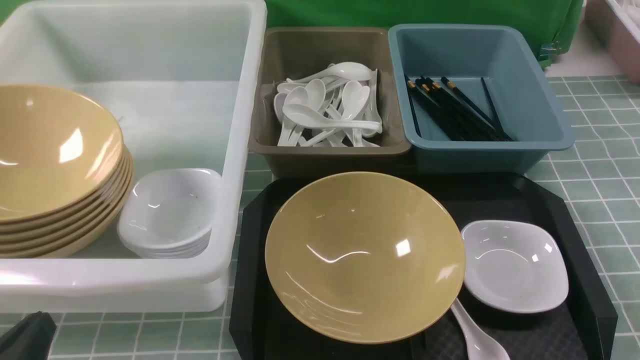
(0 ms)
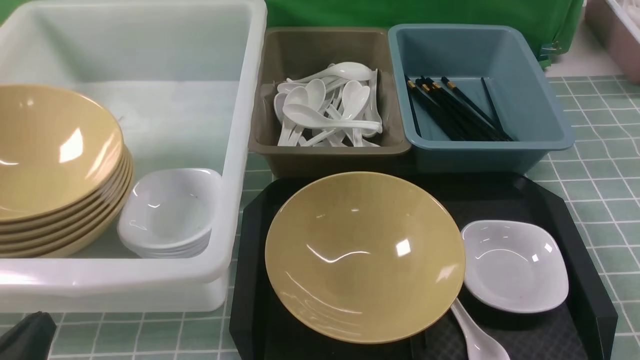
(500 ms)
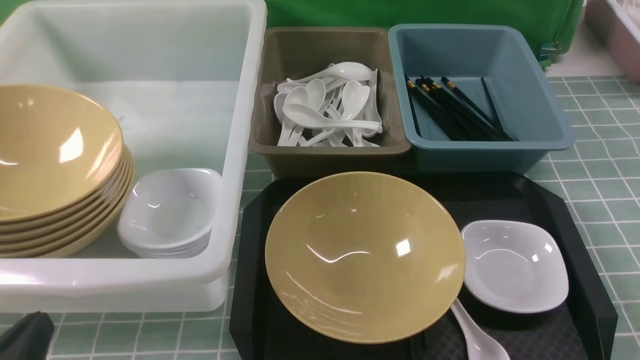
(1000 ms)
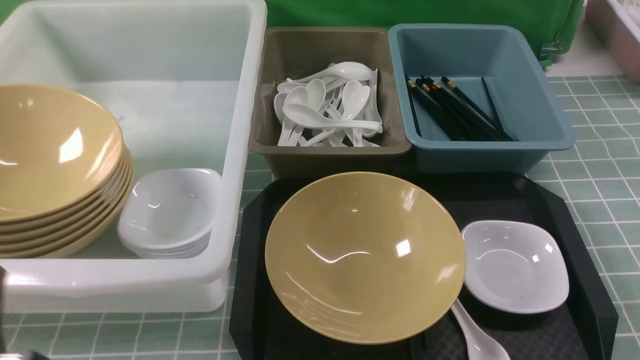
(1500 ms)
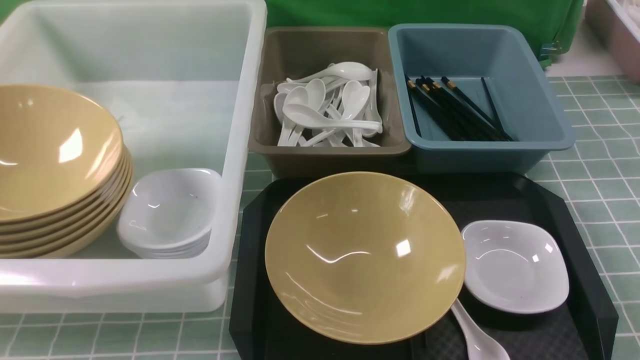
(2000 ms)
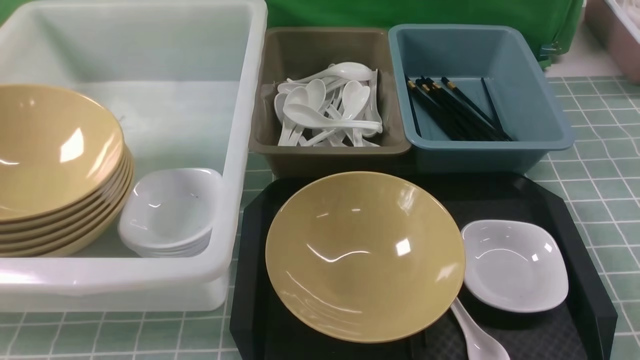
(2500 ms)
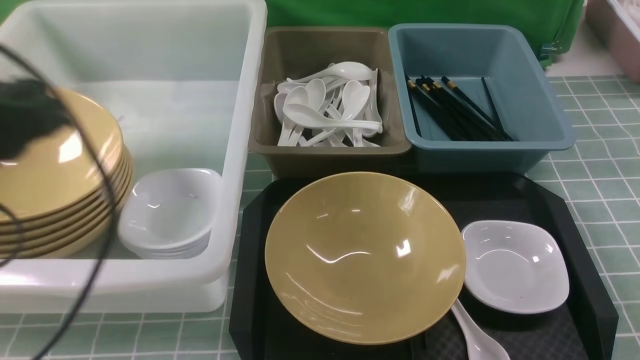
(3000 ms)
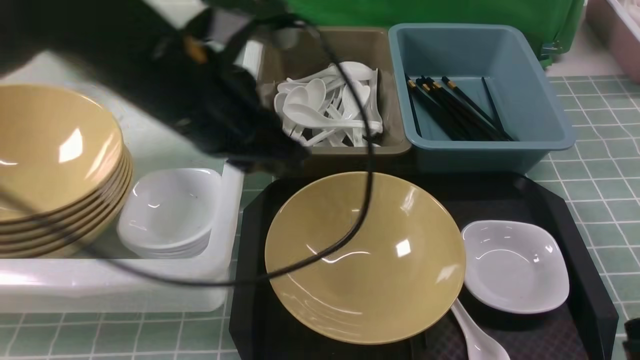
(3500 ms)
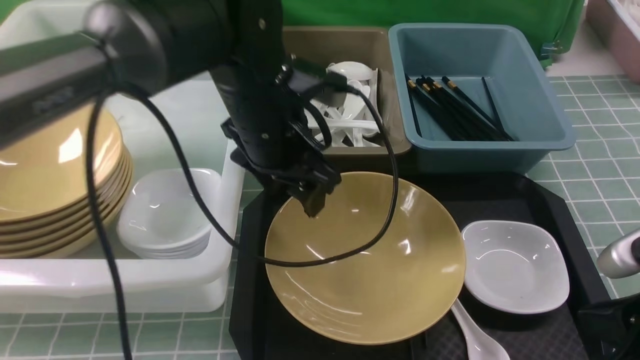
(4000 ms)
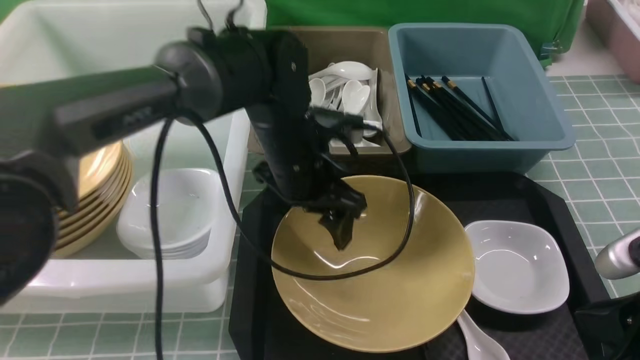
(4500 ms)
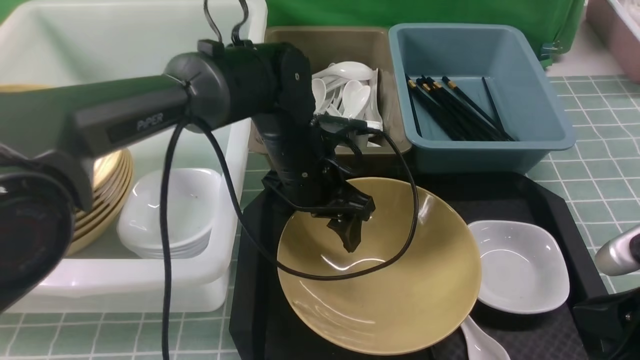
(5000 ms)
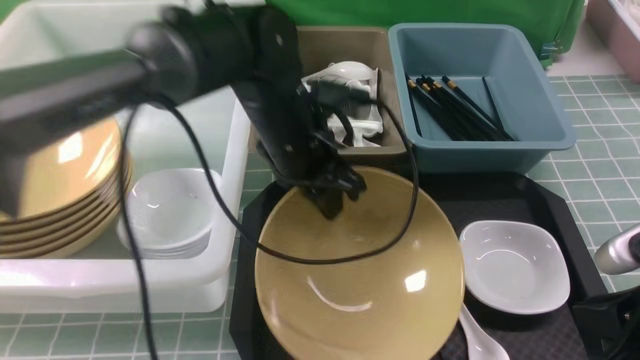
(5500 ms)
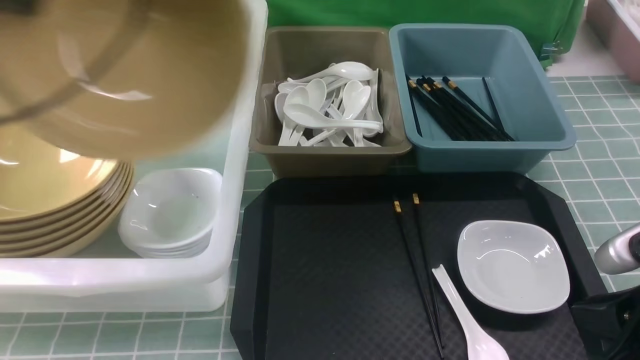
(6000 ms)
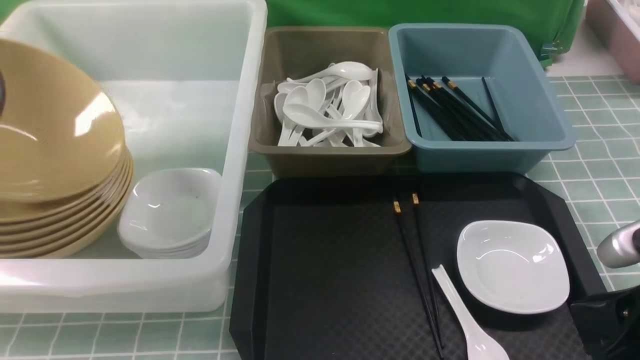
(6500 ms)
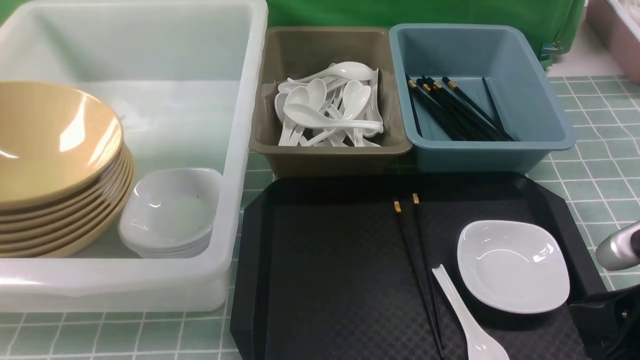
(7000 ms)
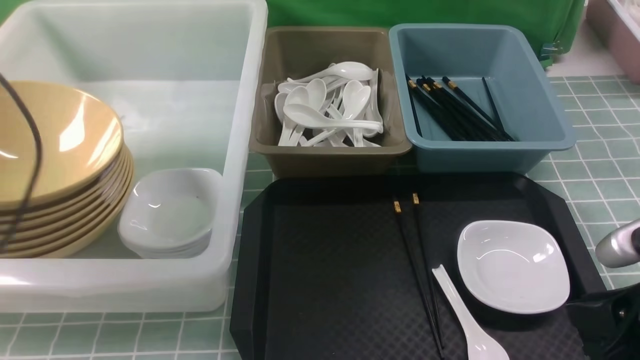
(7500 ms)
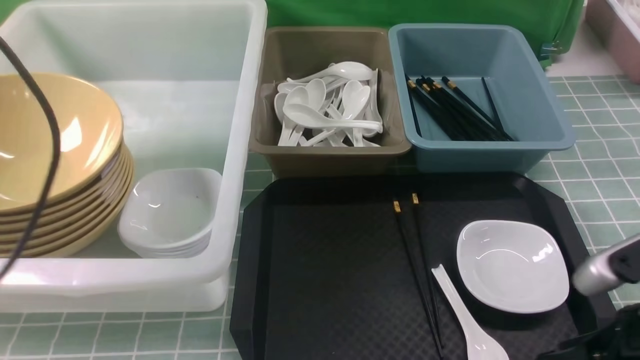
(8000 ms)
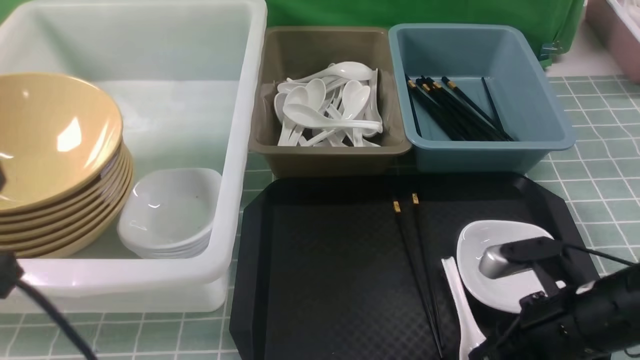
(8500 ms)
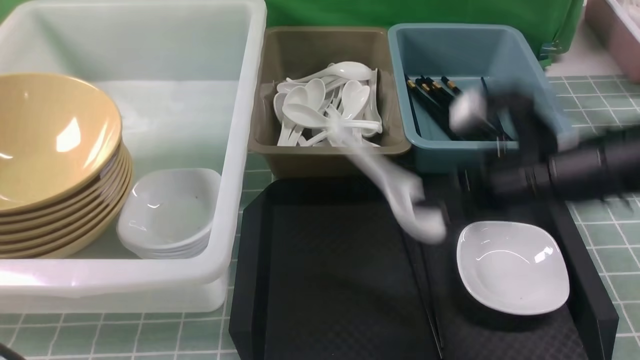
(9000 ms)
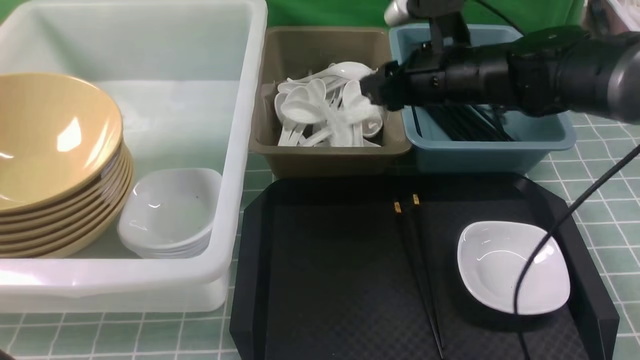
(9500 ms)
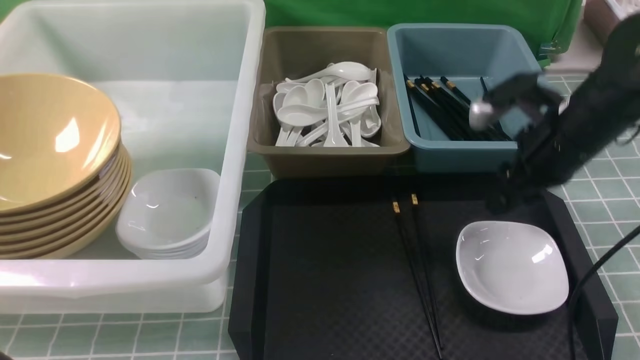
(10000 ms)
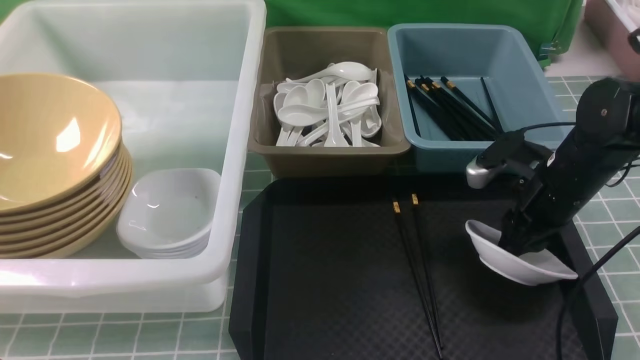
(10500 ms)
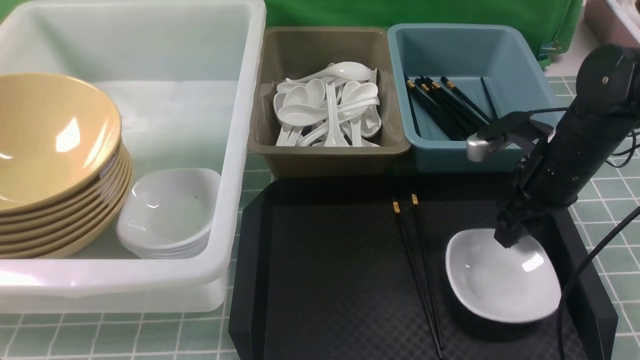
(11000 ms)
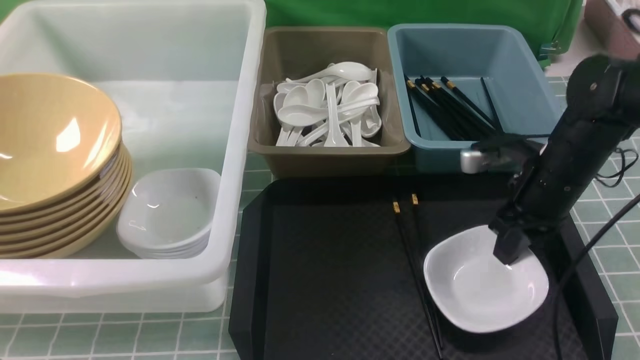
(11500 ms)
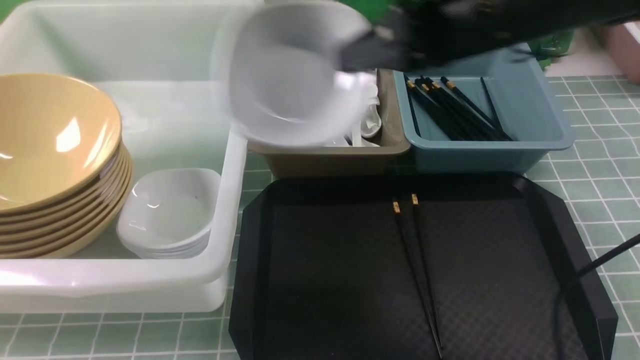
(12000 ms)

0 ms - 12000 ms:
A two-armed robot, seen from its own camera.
Task of the whole recording: on blue table put chopsticks spoon bowls plates into blue grey white boxes.
Step, 0 ms - 5500 ms: use the left arm to grab the yellow noodle bowl on the left.
Step, 6000 ms - 7000 ms: use the left arm to put the noodle bowl into the large storage box on the left.
Step, 7500 ms - 8500 ms: use the right arm to grab the soup spoon in the middle.
Step, 9000 ms - 9500 ms: use the right arm to put the soup spoon into the small storage box in the middle.
Step, 10000 ms - 11500 ms: use the right arm to grab the plate.
0 ms - 2000 ms: The left gripper travels upward by roughly 10 cm.
2000 ms - 4000 ms: The right gripper is displaced forward by some 10 cm, while the left gripper travels forward and to the right by some 40 cm, and opens up.
4000 ms - 6000 ms: The left gripper is displaced to the left and upward by roughly 30 cm, and closes.
6000 ms - 8000 ms: The left gripper is displaced backward and downward by approximately 15 cm, travels to the left and back again, some 10 cm each way, and opens, then closes once more. The right gripper opens.
8000 ms - 10000 ms: The left gripper moves backward and downward, roughly 15 cm; the right gripper travels forward by roughly 20 cm, and closes and opens again.
10000 ms - 12000 ms: The right gripper is displaced to the left and upward by approximately 20 cm, and closes its fingers.

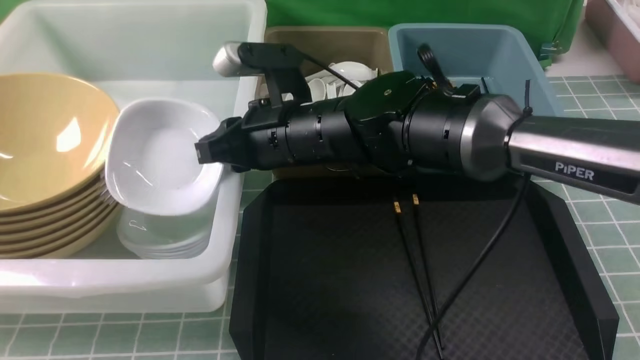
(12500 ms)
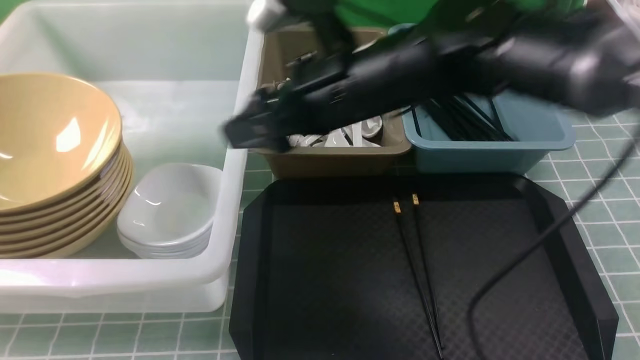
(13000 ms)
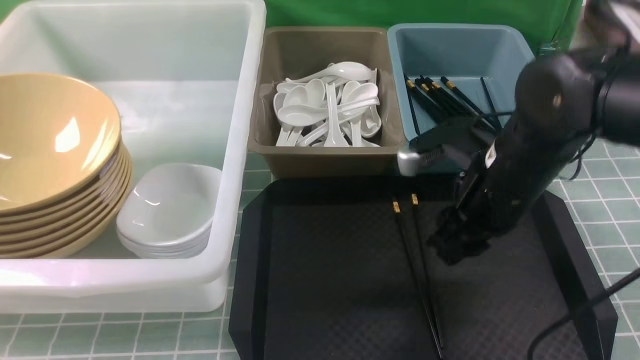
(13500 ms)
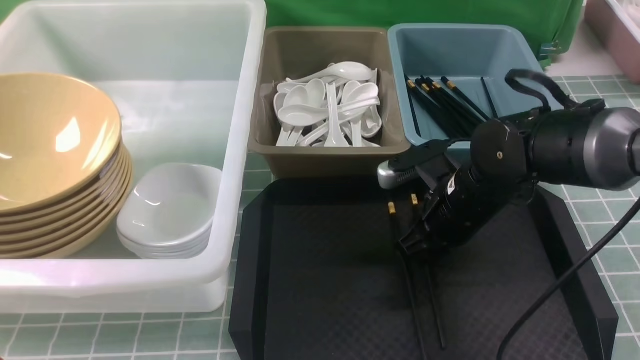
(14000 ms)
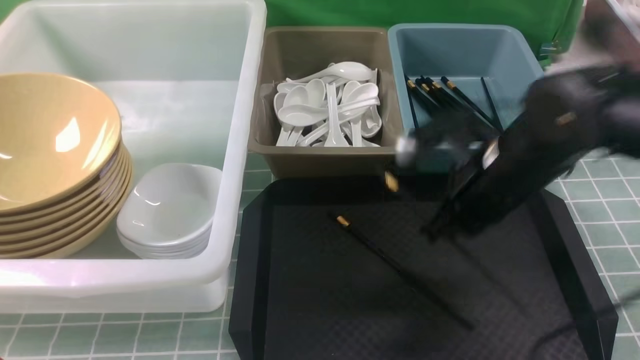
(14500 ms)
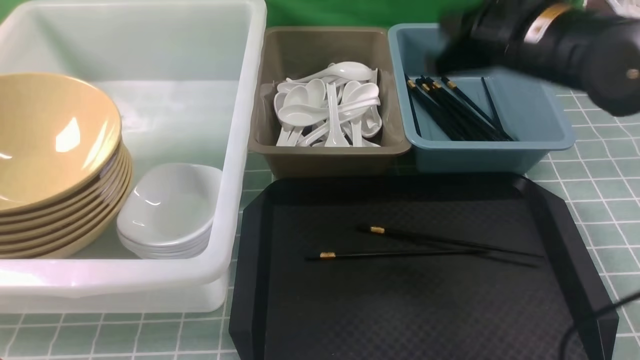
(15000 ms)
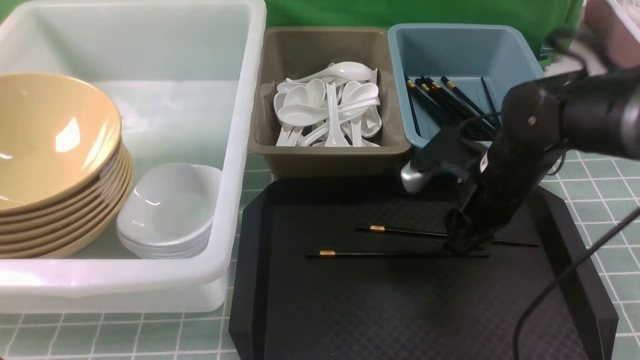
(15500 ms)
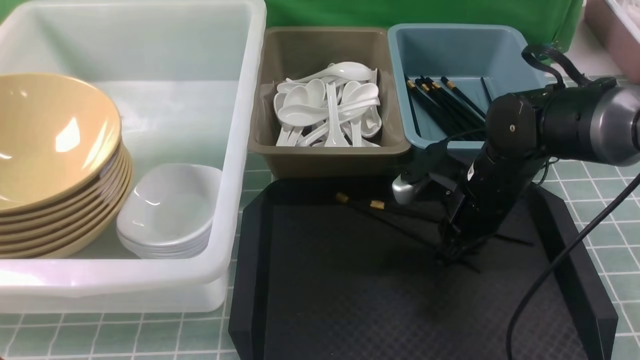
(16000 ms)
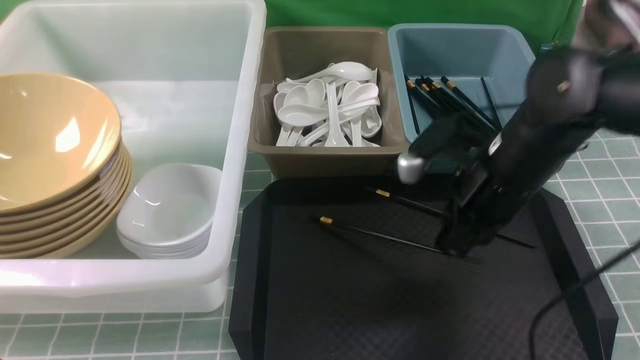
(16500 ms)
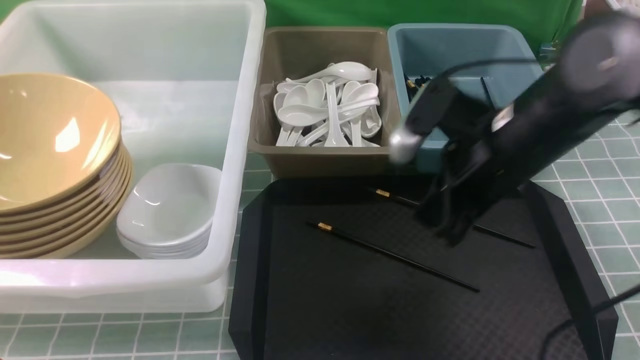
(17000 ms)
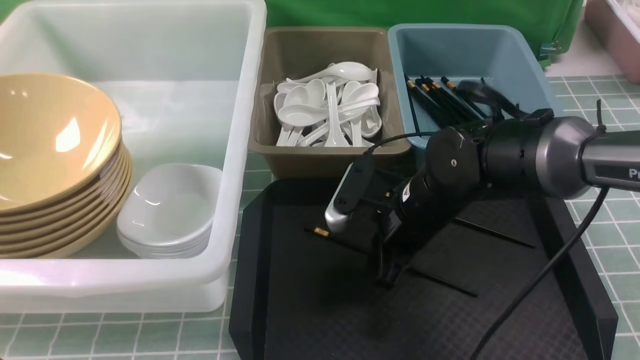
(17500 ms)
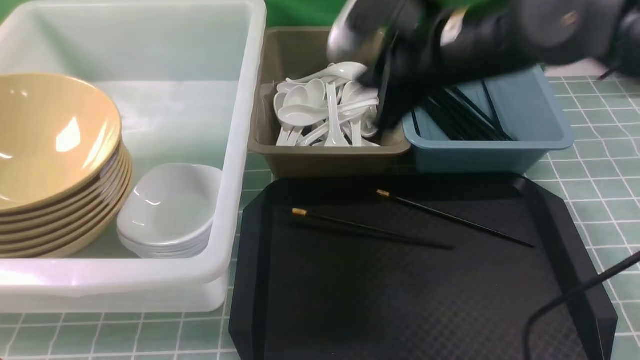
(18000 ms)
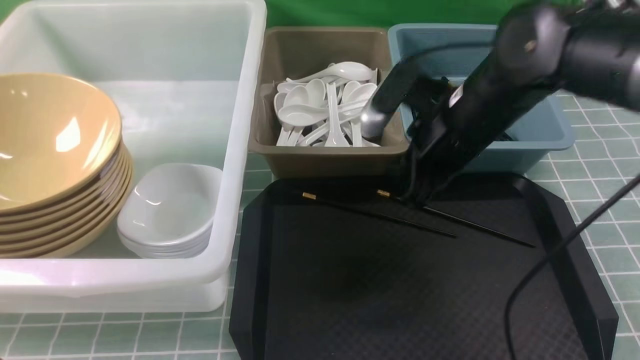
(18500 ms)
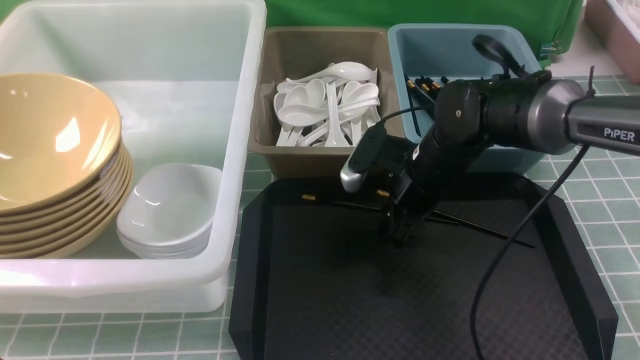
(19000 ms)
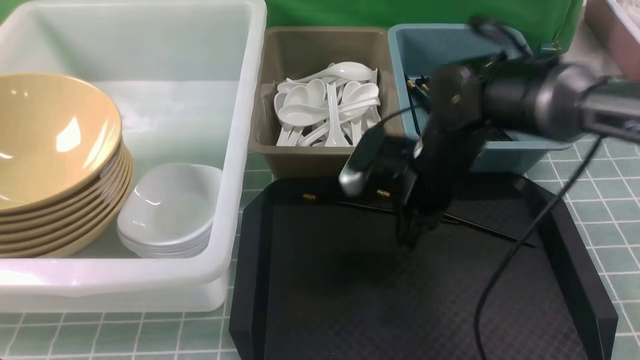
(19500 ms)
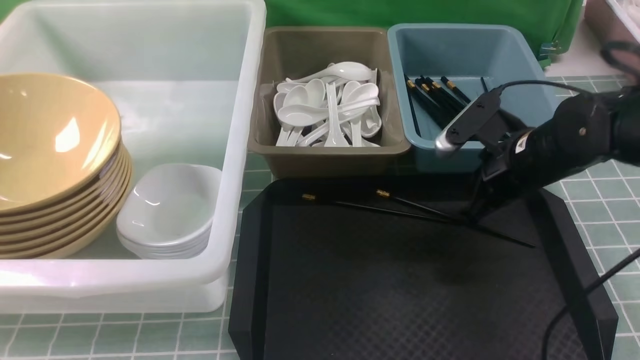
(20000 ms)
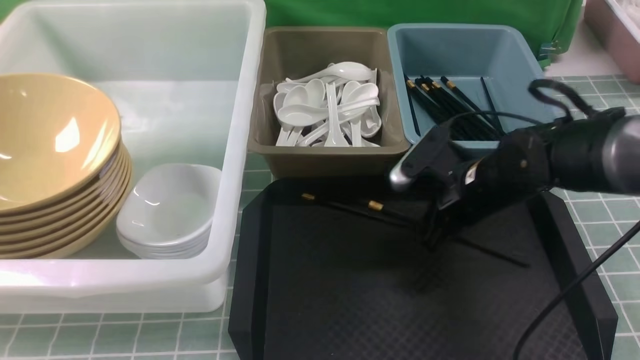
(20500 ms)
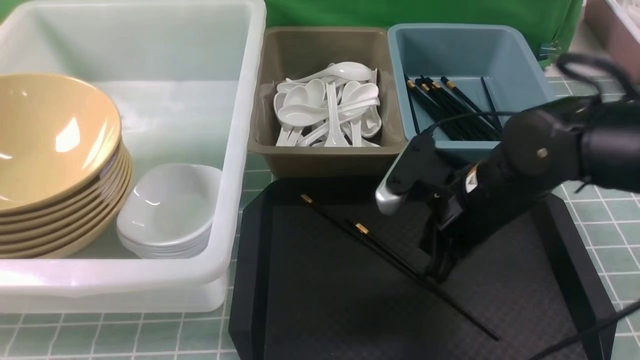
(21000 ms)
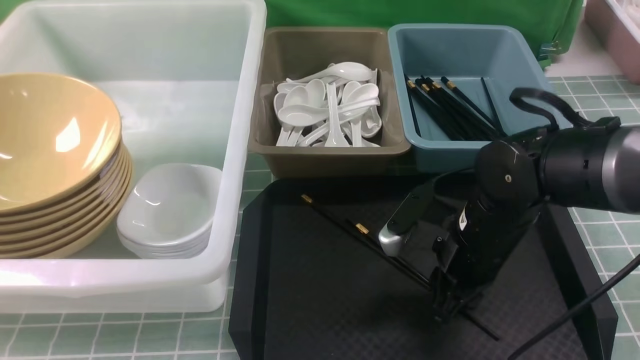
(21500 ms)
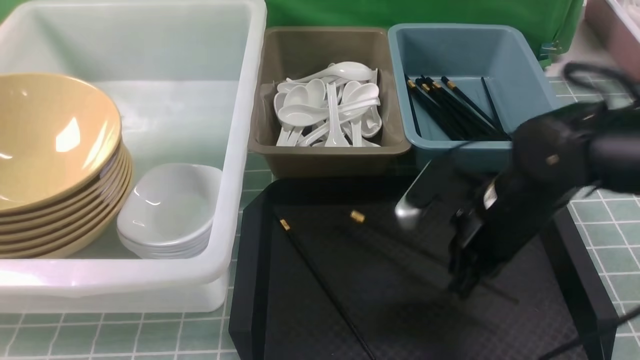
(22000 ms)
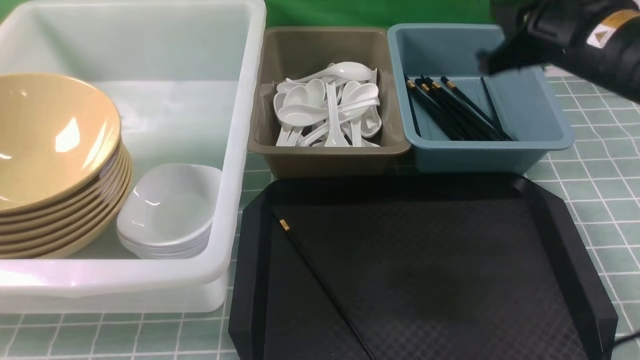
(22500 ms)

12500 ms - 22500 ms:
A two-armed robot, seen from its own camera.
Task of the whole recording: on blue table put chopsticks spoon bowls plates into blue grey white boxes.
Step, 13000 ms - 22000 ms: use the right arm to grab a chopstick.
12500 ms - 14500 ms: The right gripper moves to the right, approximately 20 cm, and closes its fingers.
14500 ms - 16500 ms: The right gripper goes up and down, approximately 15 cm each way, reversing 2 times, and opens, then closes again.
16500 ms - 18500 ms: The right gripper moves up and down over approximately 15 cm, changing direction 2 times.
18500 ms - 20500 ms: The right gripper moves downward, roughly 10 cm, moves roughly 10 cm to the right and comes back, and opens and closes again.
20500 ms - 22500 ms: The right gripper shifts about 15 cm upward.
